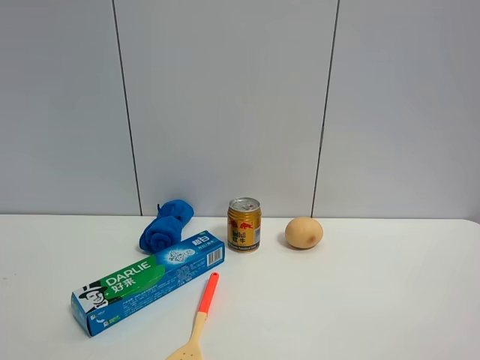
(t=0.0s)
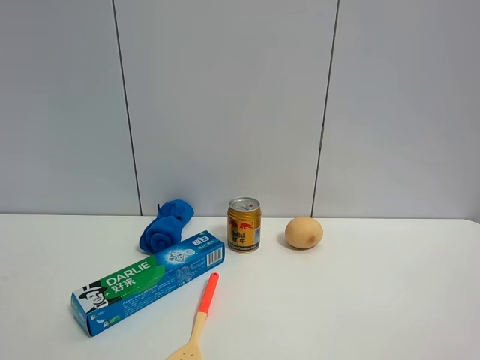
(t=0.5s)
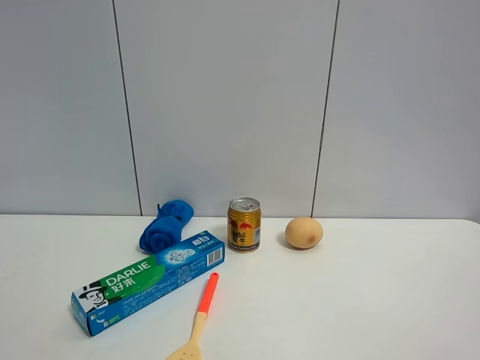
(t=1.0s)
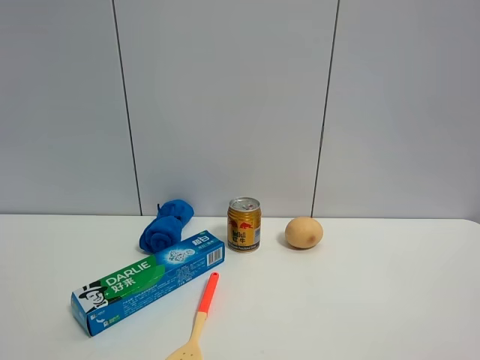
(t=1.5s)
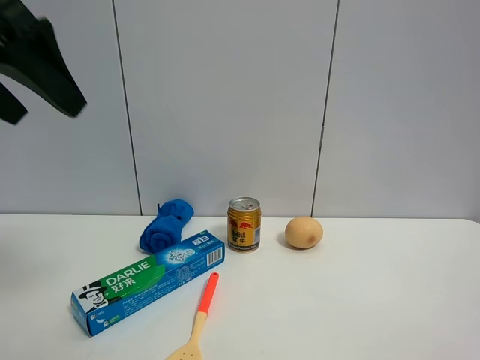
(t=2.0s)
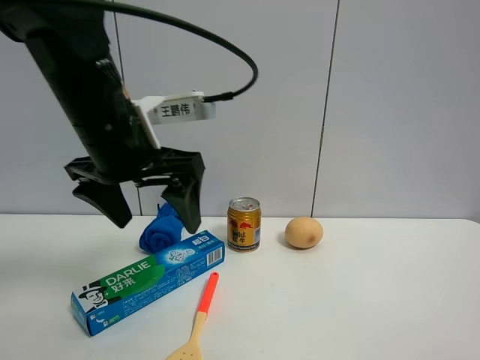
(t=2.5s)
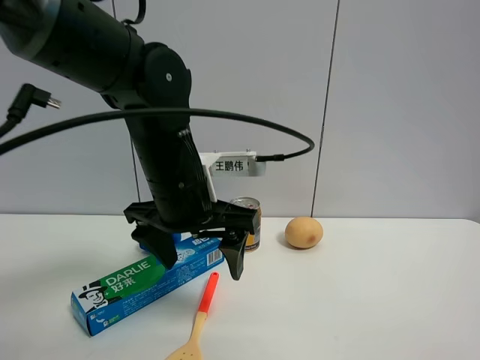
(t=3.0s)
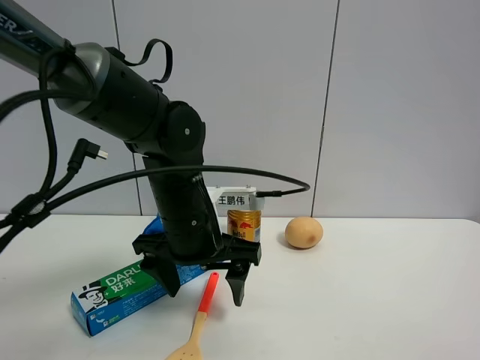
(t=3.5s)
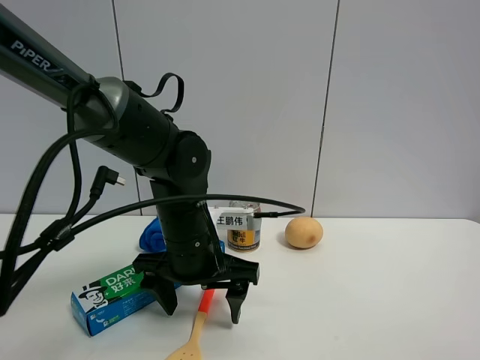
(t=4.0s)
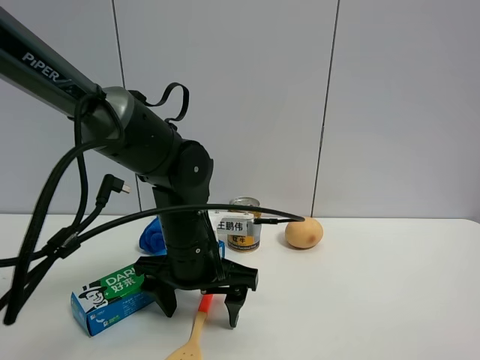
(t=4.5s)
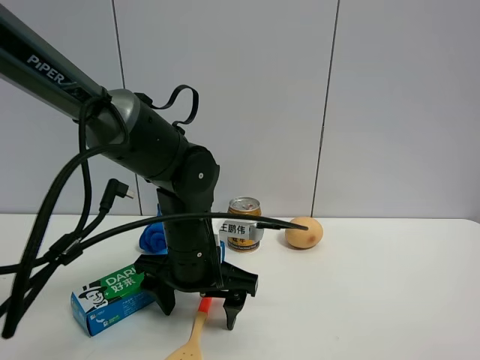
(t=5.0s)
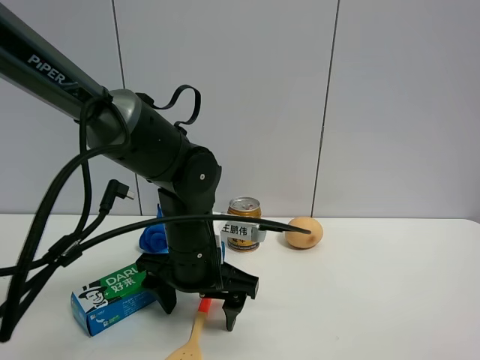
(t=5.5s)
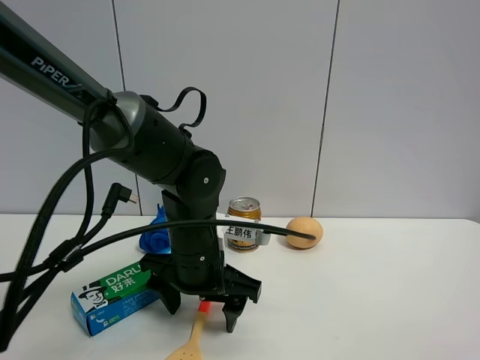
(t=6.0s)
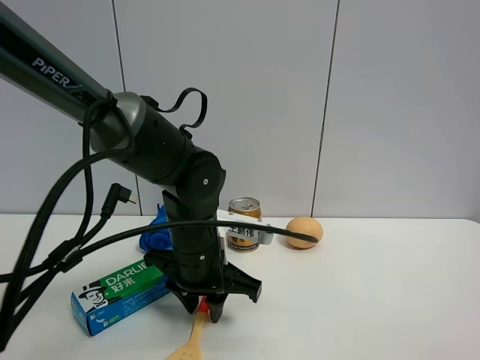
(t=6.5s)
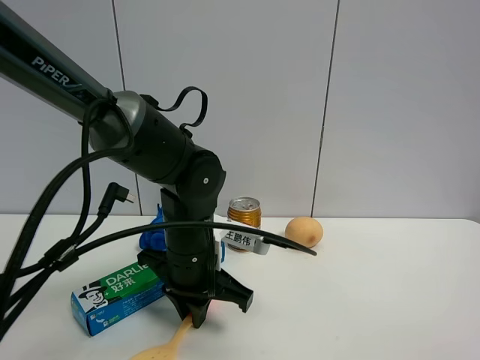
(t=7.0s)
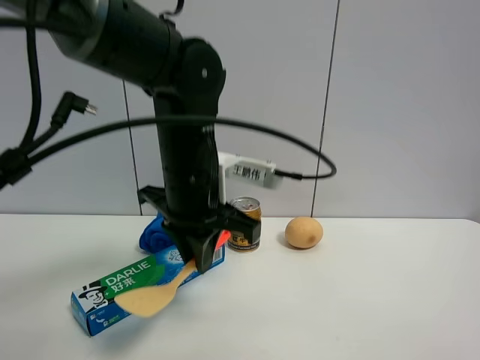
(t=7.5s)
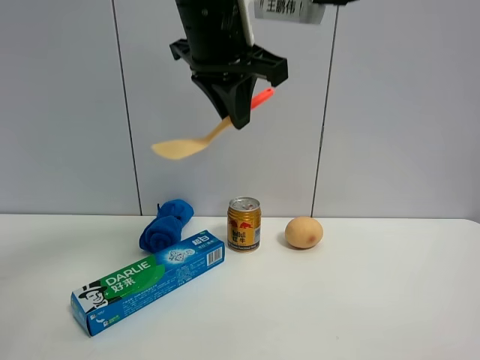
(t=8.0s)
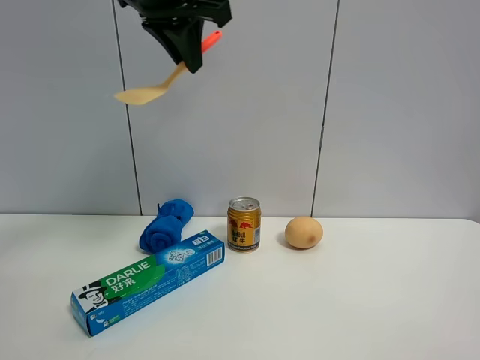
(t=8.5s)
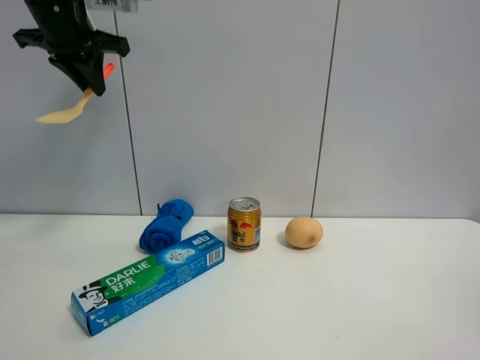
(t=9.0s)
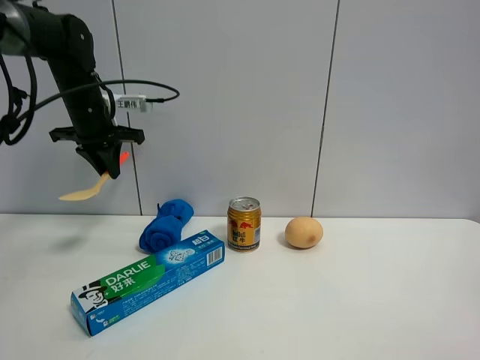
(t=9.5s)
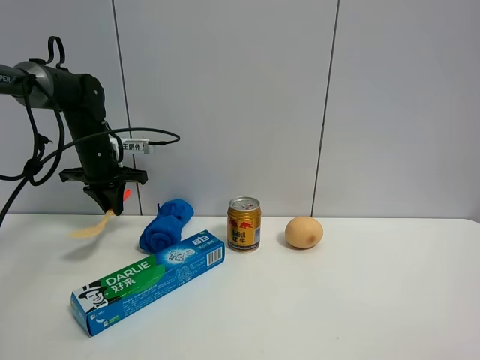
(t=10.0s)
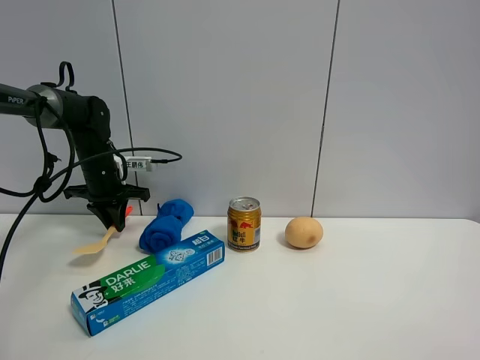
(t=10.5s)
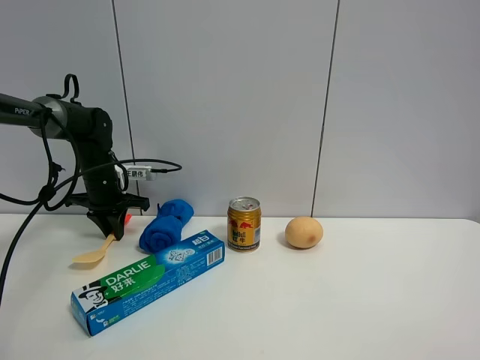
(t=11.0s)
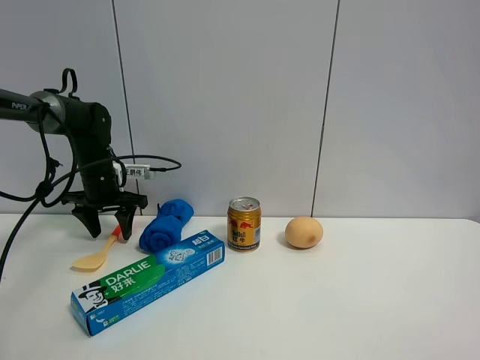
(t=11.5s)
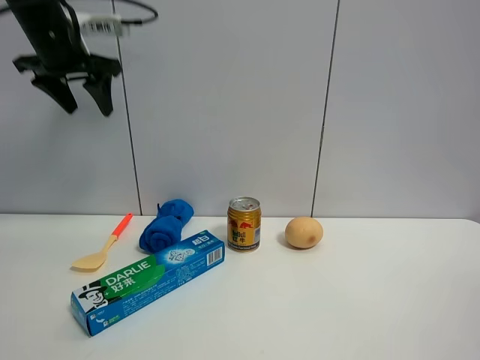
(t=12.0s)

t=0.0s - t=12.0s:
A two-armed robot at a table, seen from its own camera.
Task of the whole recording: the gripper move the object.
Step, t=0.0s - t=6.5s: Grasp the cooking shovel with the left gripper.
Step, t=7.0s - t=11.5s: Place the cooking shovel on the table with the left gripper.
t=0.0s - t=2.0s: The left gripper moves forward, about 25 cm.
t=2.0s - t=4.0s: The left gripper heads downward and to the right, covering about 30 cm.
t=4.0s - t=6.0s: The grippers move only a little.
t=6.0s - t=8.0s: The left gripper moves upward, some 25 cm, and closes.
t=8.0s - t=10.0s: The left gripper heads to the left, downward and forward, covering some 35 cm.
t=10.0s - t=12.0s: The left gripper shifts about 20 cm upward, and opens up.

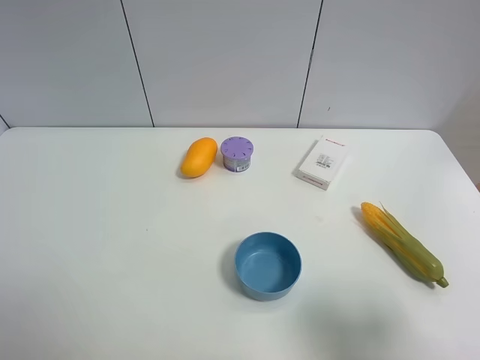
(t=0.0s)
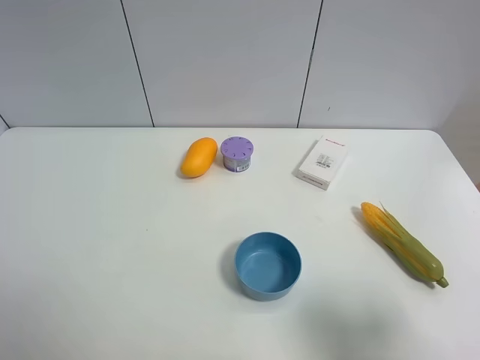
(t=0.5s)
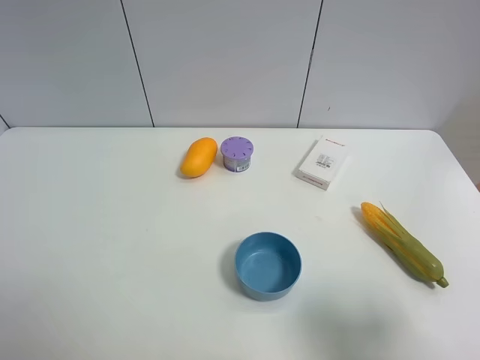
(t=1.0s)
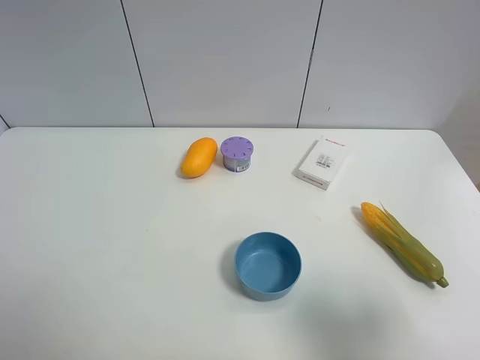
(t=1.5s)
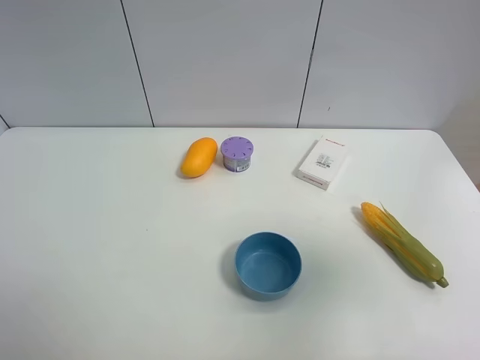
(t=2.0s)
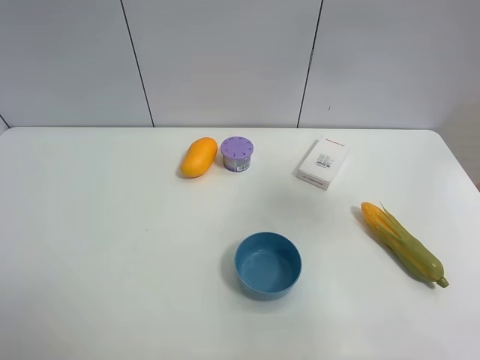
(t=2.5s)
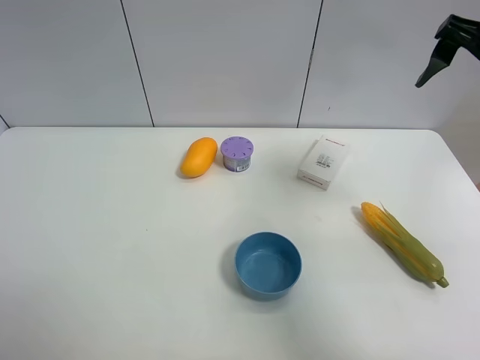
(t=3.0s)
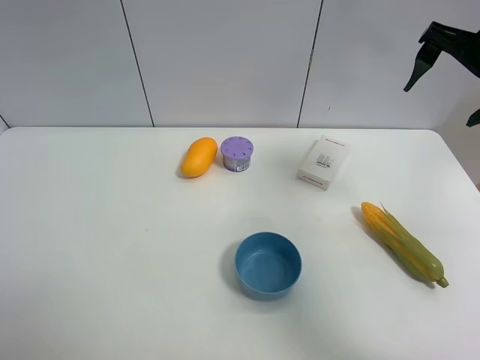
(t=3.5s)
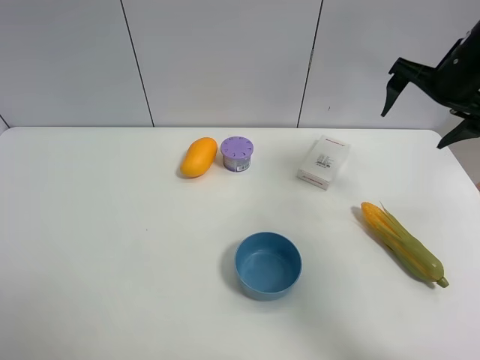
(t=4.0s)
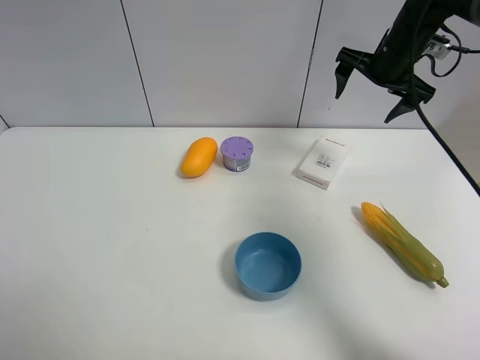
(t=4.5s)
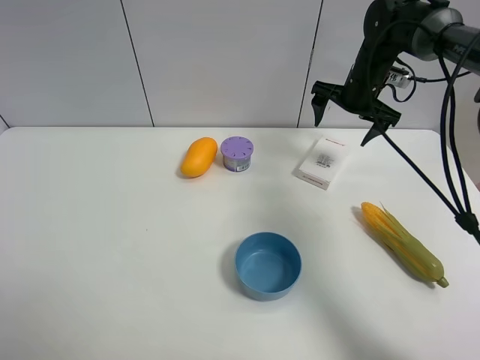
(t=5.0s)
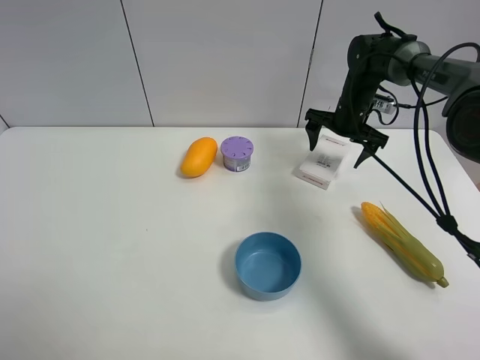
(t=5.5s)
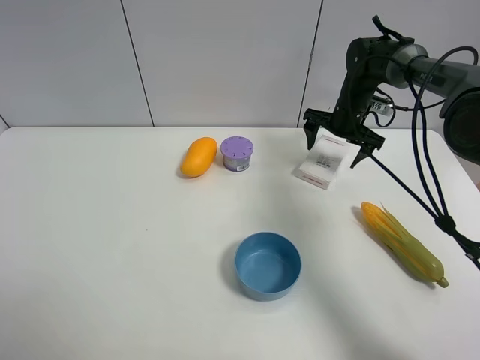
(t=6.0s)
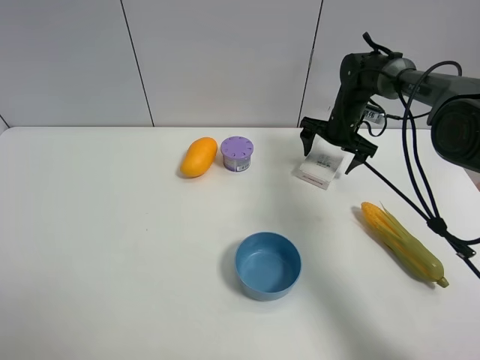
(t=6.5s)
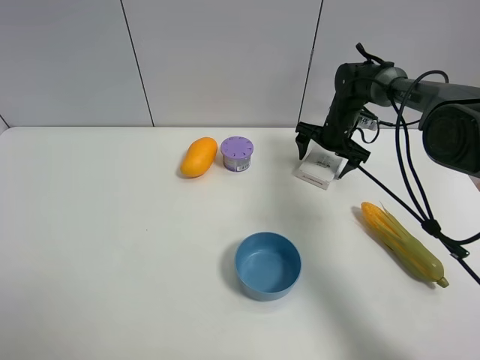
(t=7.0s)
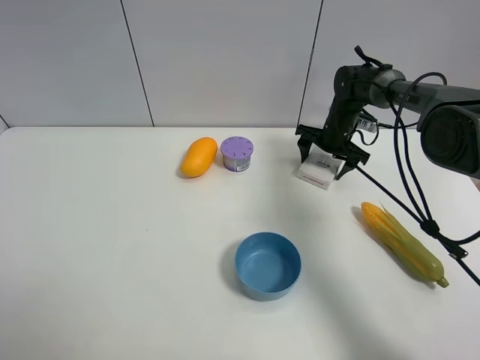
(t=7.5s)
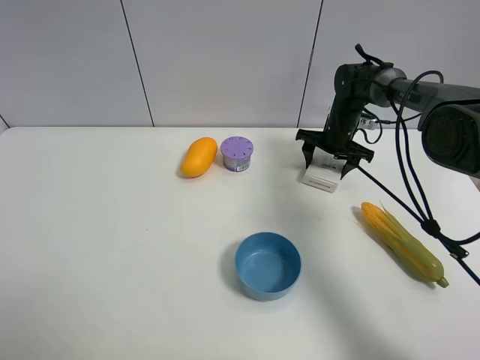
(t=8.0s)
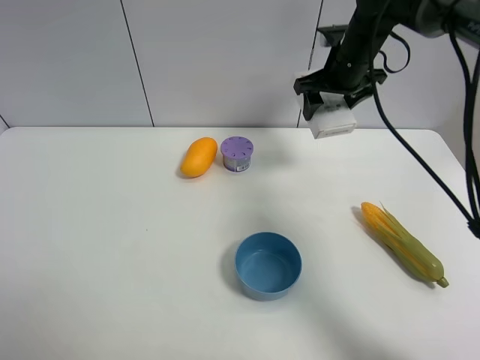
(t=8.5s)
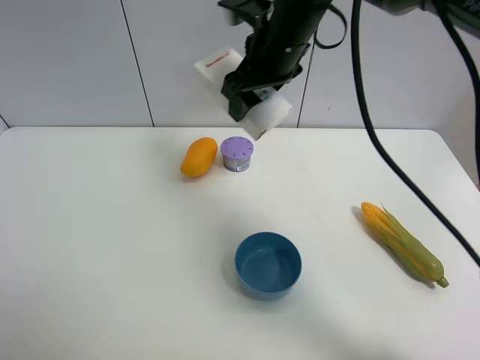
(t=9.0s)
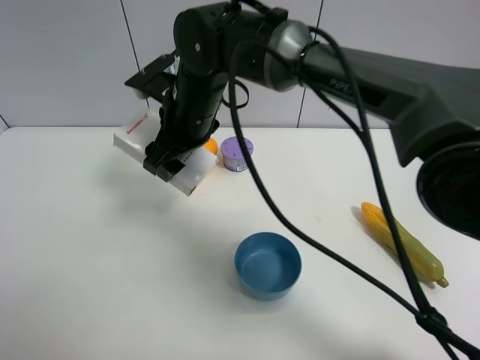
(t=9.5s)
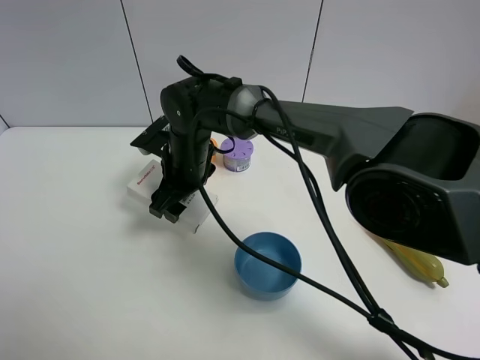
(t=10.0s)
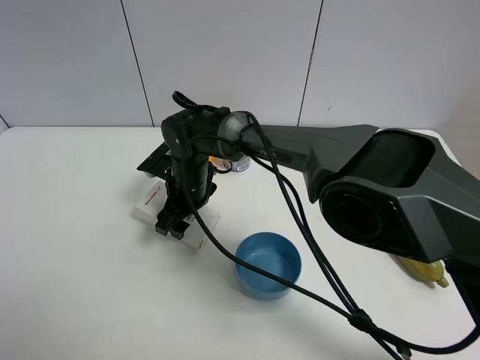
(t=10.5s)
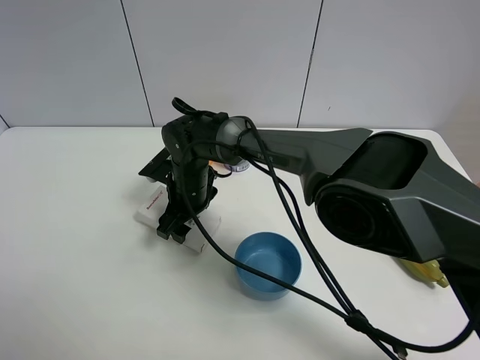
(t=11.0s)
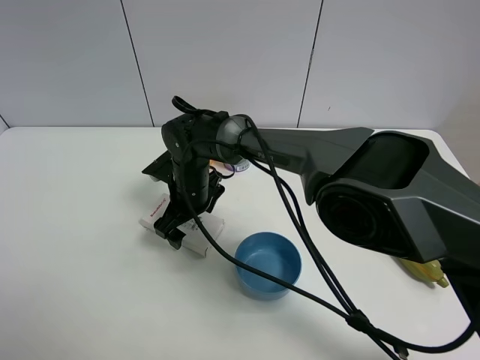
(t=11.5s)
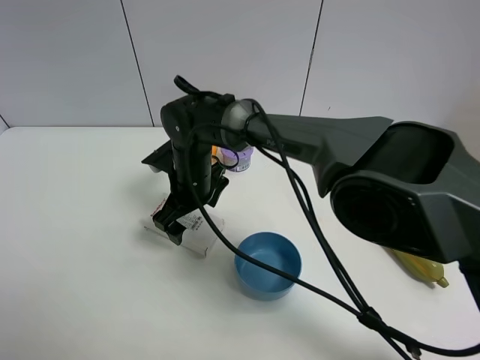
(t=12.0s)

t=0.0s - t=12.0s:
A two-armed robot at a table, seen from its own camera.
Task of the whole recording: the gripper move the object.
Step, t=0.0s - t=7.5s: Grasp the USB box with the right gripper.
Step, t=8.0s - t=11.5s: Place the USB box on the table with the right gripper.
t=0.0s - t=2.0s: The right gripper heads upward and forward, covering about 15 cm.
t=2.0s - t=4.0s: The right gripper goes roughly 30 cm forward.
t=4.0s - t=6.0s: The right gripper shifts roughly 20 cm downward, forward and to the left.
t=6.0s - t=8.0s: The right gripper closes up.
t=8.0s - t=10.0s: The right gripper shifts some 35 cm to the left and backward.
t=10.0s - t=12.0s: The right gripper opens.

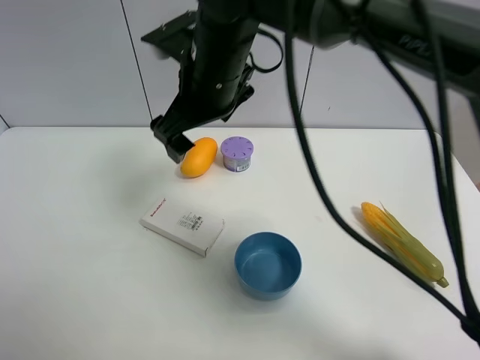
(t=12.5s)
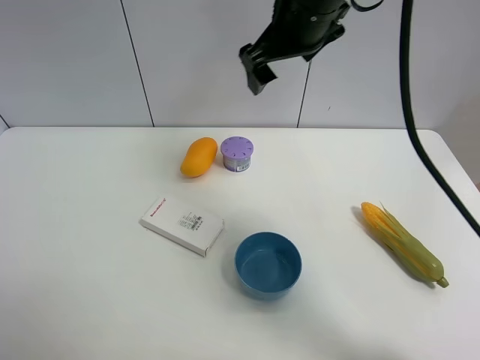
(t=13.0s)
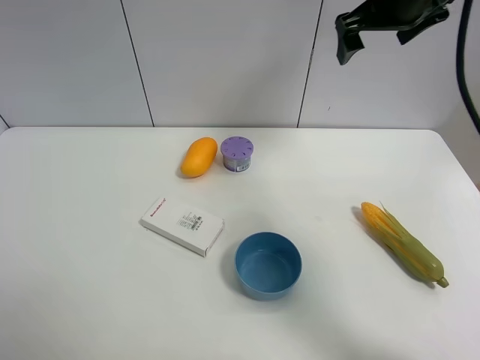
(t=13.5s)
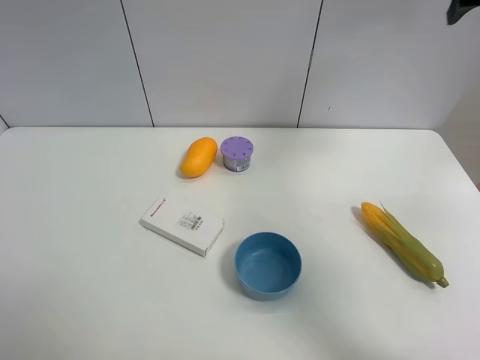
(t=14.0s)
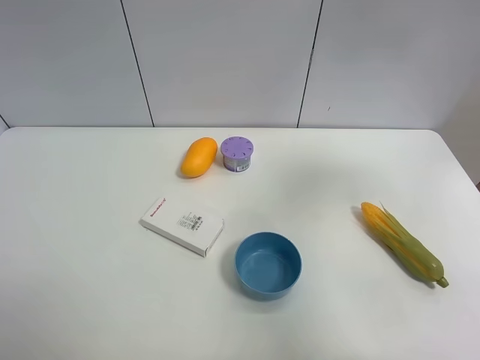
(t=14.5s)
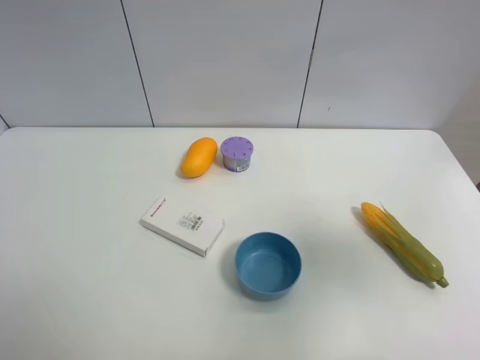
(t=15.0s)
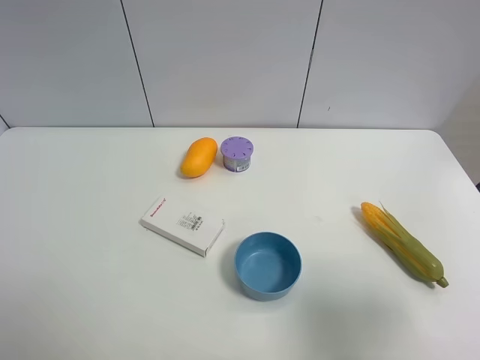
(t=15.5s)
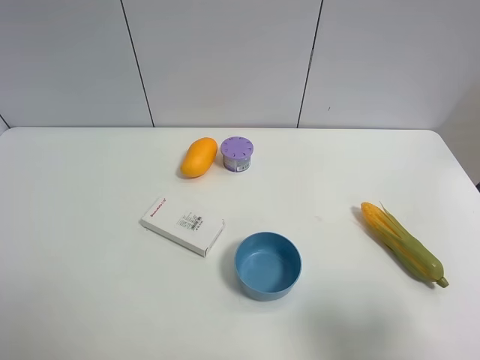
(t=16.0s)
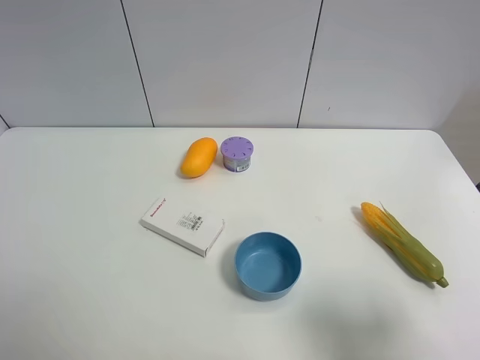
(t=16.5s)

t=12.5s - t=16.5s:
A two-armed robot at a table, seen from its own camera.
Task of the whole recording: the gripper move the object.
t=12.5s - t=14.5s: The right gripper moves to the right, some 40 cm.
t=14.5s - t=16.5s: The right gripper travels backward and downward by roughly 30 cm.
